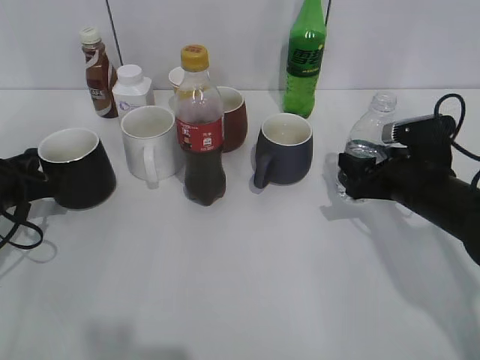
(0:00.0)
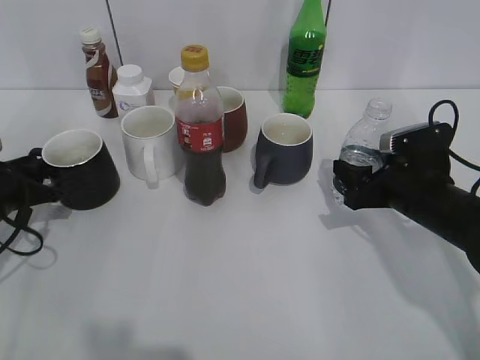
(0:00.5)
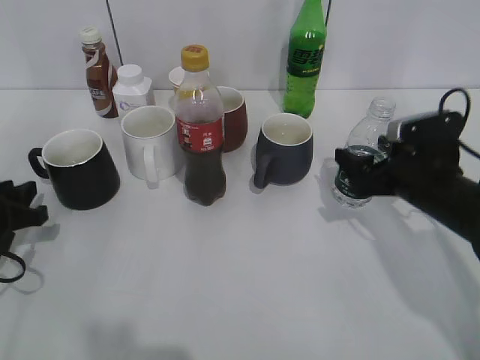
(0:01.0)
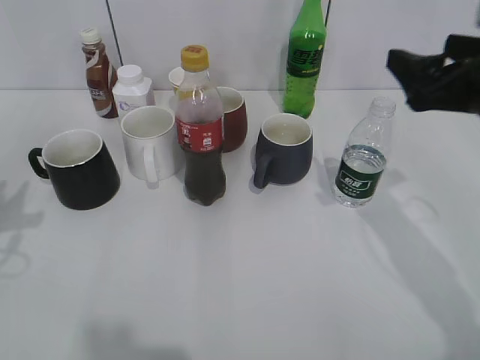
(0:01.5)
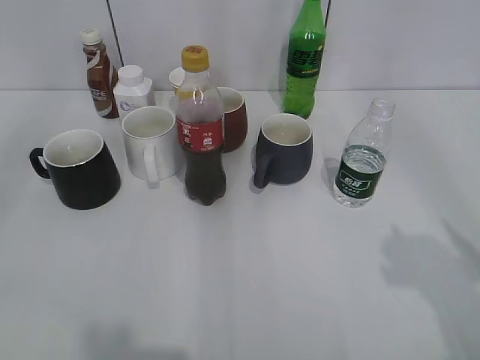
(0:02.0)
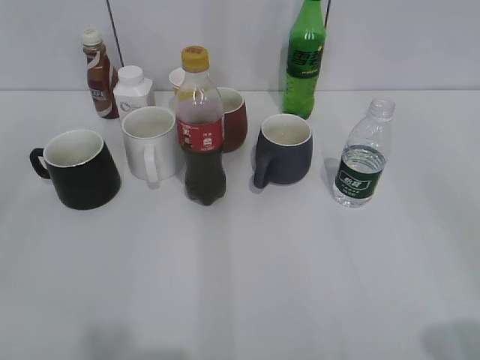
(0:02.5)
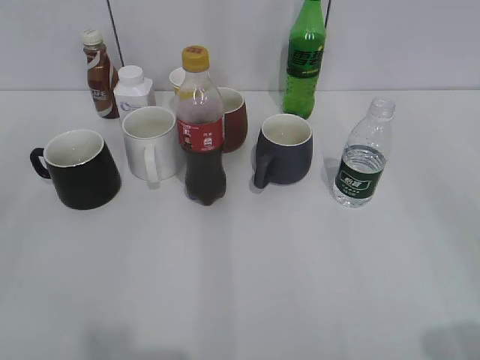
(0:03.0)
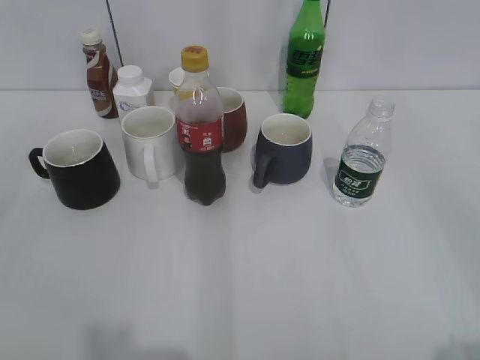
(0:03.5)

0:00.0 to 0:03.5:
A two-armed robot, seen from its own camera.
0:00.0 to 0:02.0: The grippers both shift upward and backward by about 30 cm. The right gripper opens its fingers; the left gripper opens its fingers.
